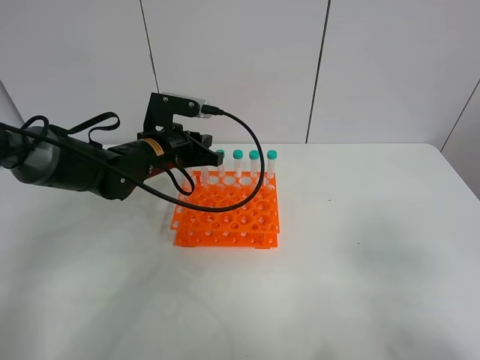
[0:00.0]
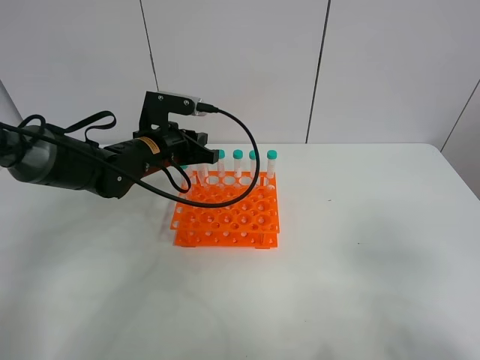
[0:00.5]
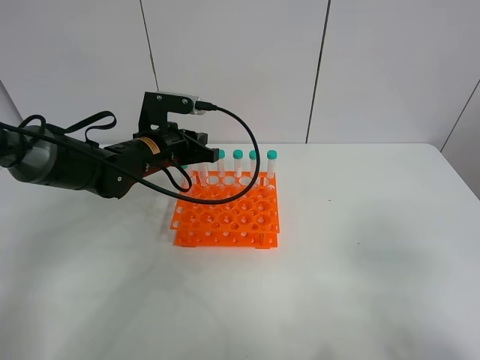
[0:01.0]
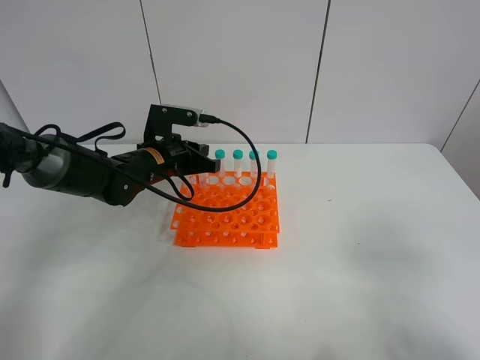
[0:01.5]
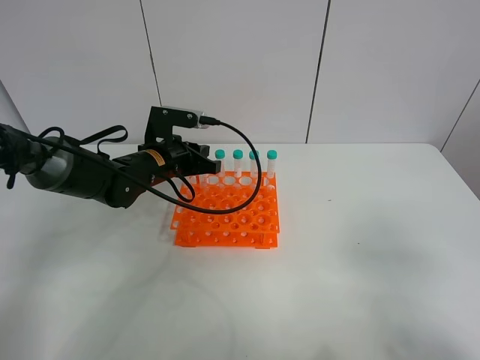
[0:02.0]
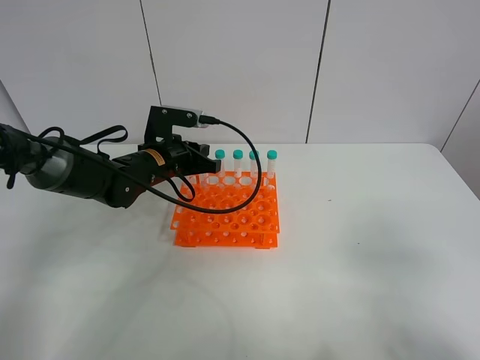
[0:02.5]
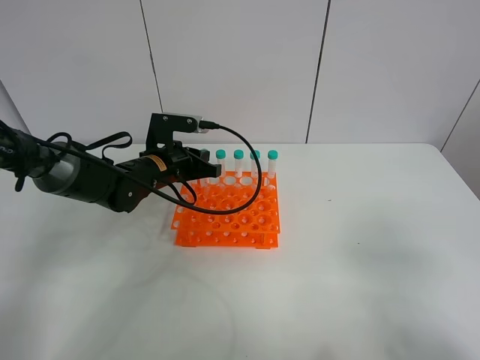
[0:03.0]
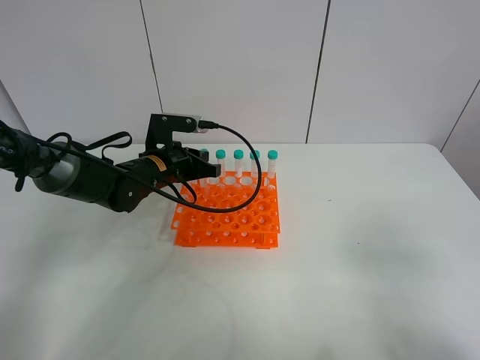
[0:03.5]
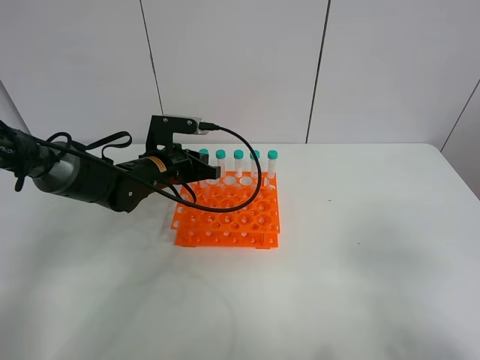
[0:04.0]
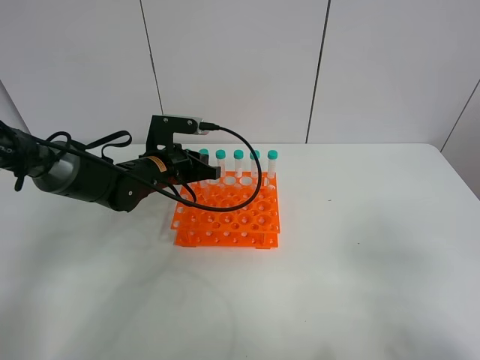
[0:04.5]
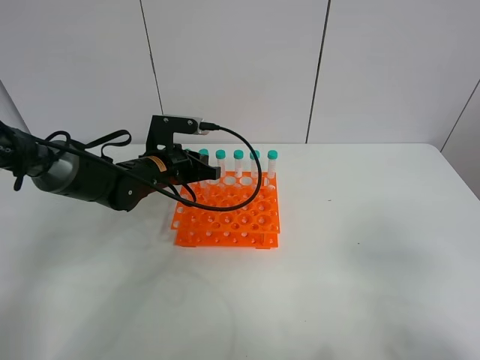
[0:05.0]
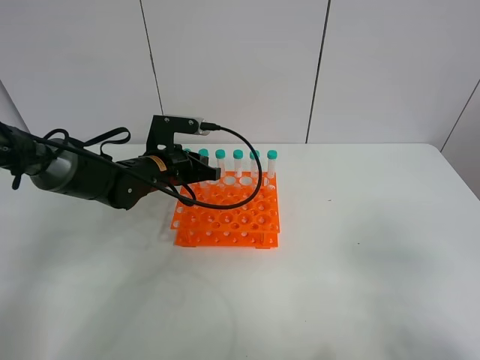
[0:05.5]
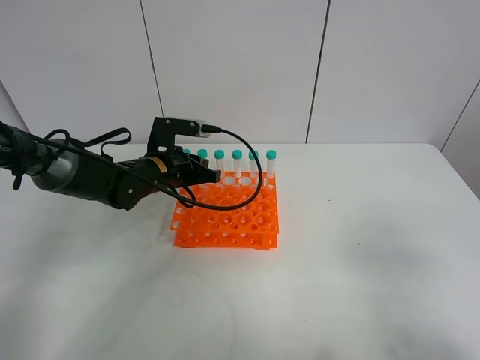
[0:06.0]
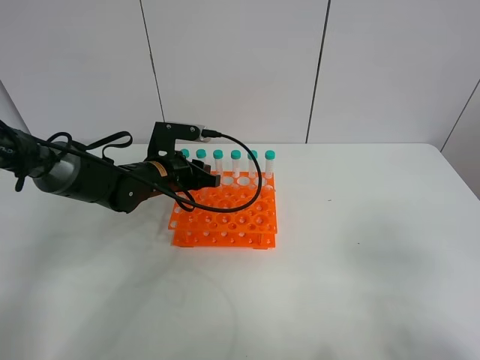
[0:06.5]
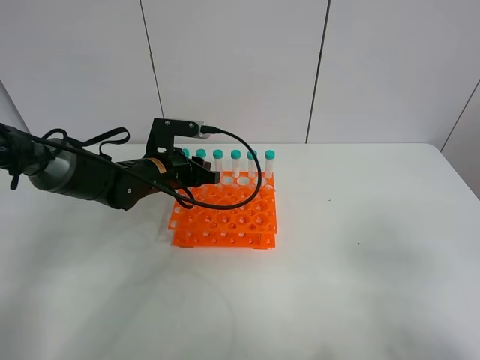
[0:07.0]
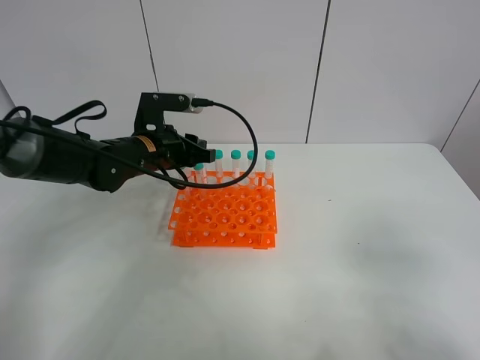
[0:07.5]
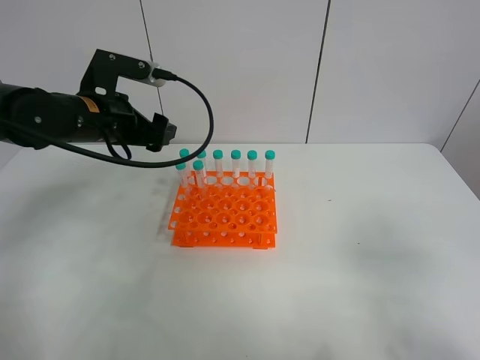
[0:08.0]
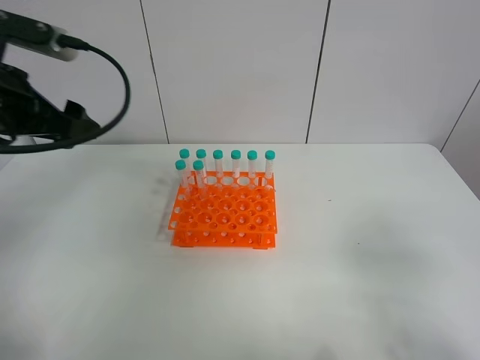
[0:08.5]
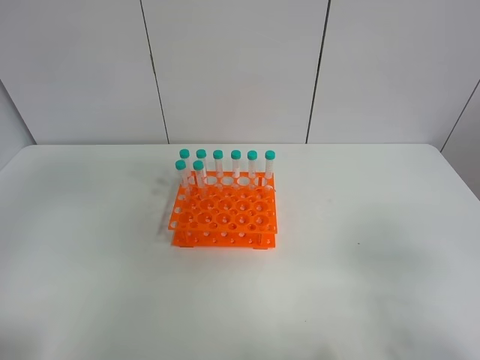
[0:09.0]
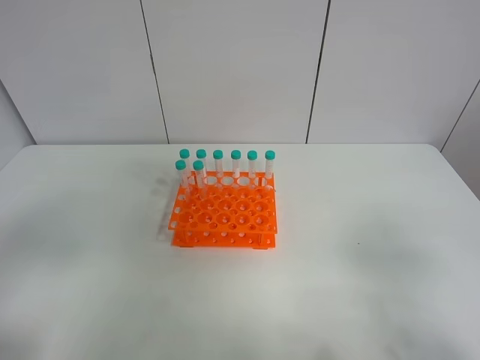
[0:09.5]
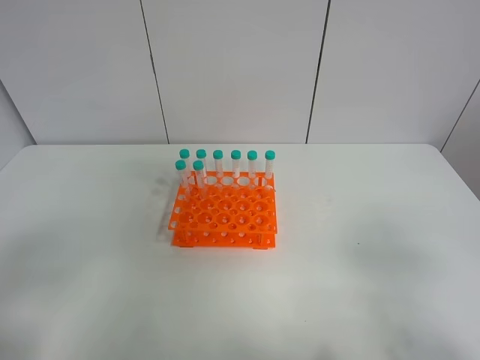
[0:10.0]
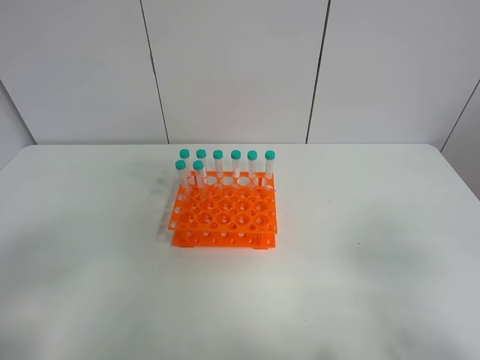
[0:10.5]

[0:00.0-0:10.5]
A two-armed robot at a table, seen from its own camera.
Task of the whole recording: Put the test tube on the table back onto the test tube rack.
Step, 0:00.0 to 0:07.5: Place the test tube on the test tube rack with the left gripper.
0:00.0 to 0:06.5: There are only small adjustments of the grippers.
0:06.5 to 0:08.5: The left gripper goes about 30 cm upward, to the left and backward, and opens.
0:08.5 to 0:10.5: The left gripper travels backward by about 25 cm.
